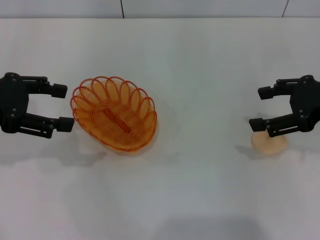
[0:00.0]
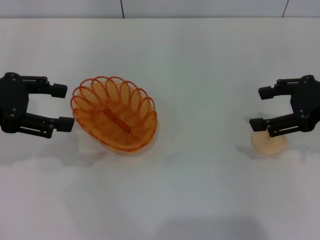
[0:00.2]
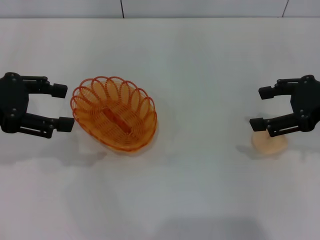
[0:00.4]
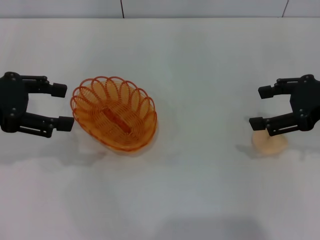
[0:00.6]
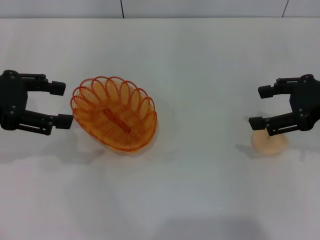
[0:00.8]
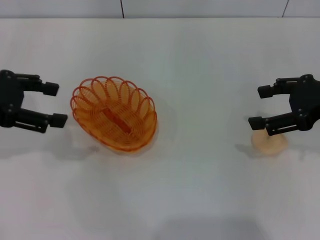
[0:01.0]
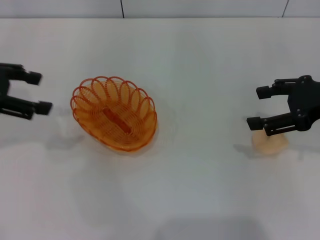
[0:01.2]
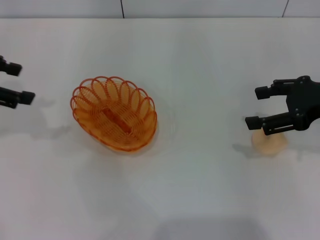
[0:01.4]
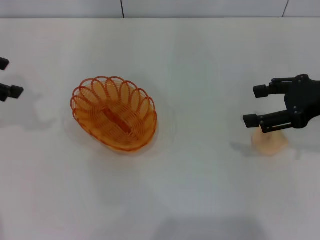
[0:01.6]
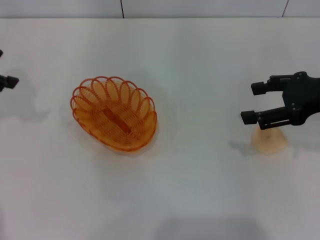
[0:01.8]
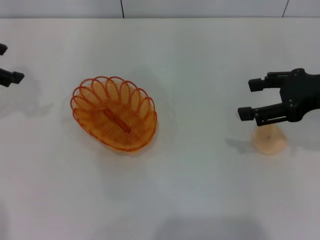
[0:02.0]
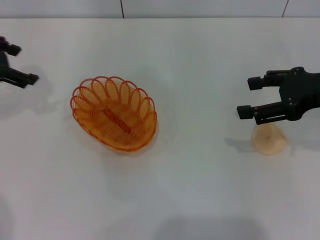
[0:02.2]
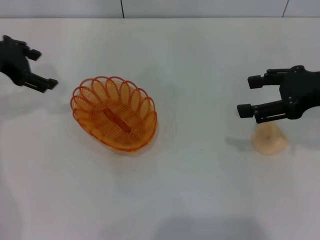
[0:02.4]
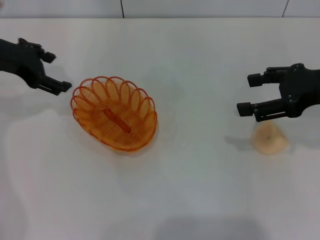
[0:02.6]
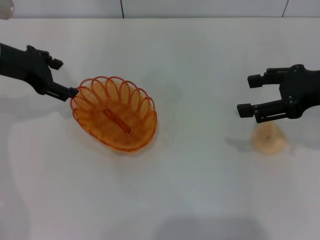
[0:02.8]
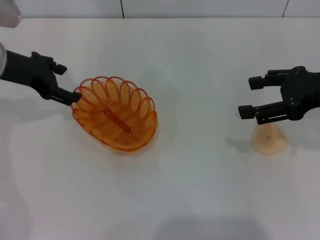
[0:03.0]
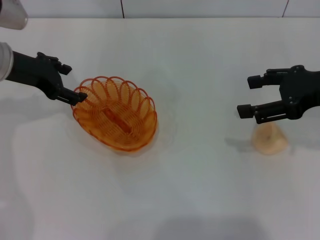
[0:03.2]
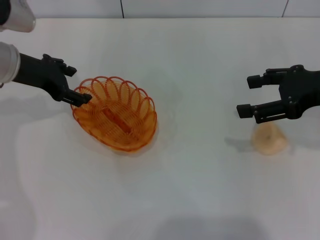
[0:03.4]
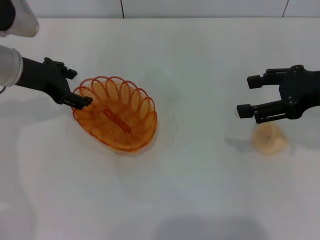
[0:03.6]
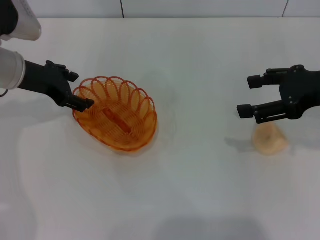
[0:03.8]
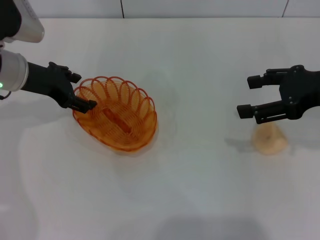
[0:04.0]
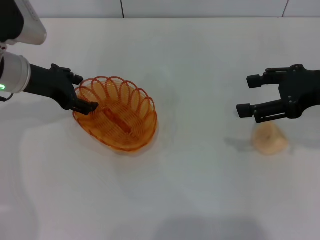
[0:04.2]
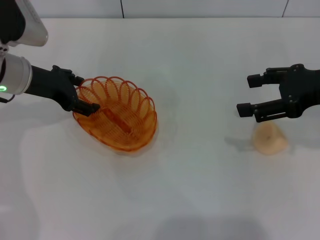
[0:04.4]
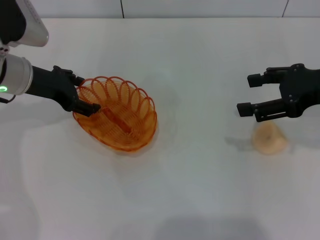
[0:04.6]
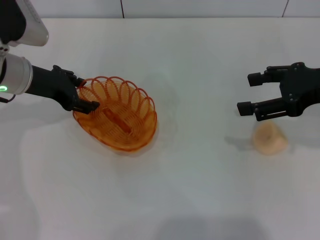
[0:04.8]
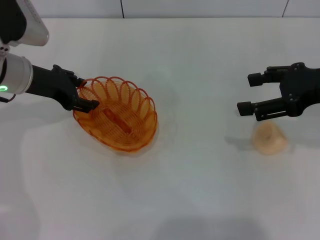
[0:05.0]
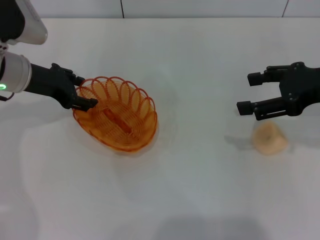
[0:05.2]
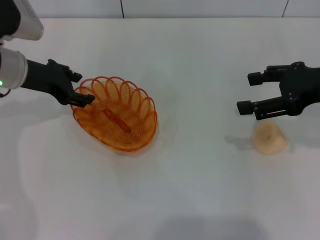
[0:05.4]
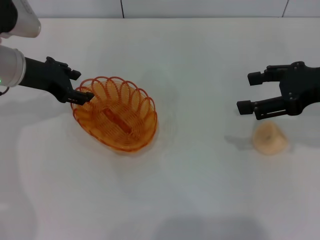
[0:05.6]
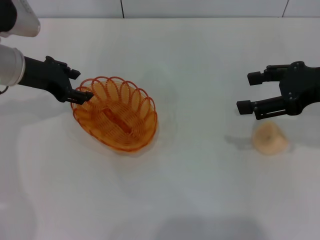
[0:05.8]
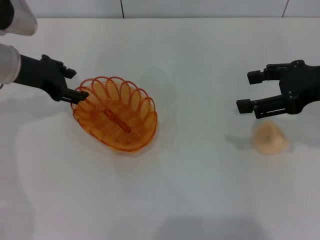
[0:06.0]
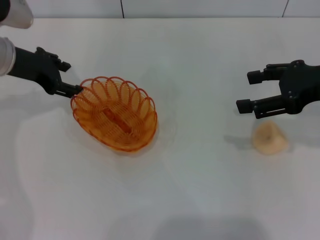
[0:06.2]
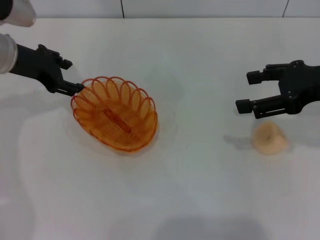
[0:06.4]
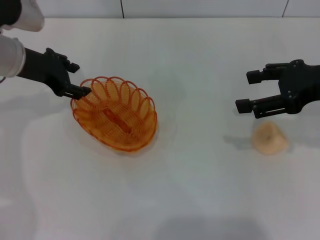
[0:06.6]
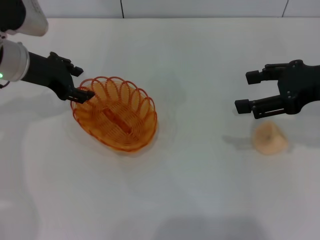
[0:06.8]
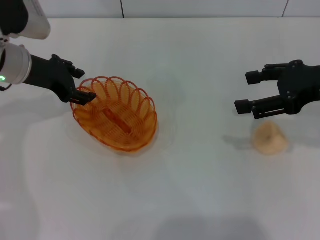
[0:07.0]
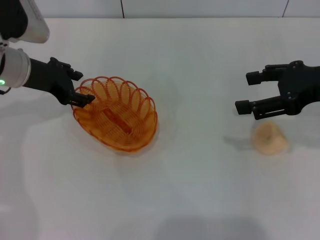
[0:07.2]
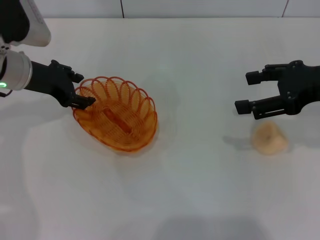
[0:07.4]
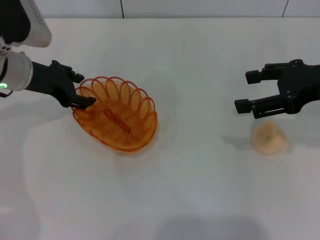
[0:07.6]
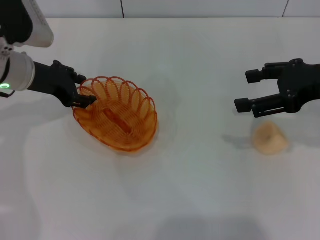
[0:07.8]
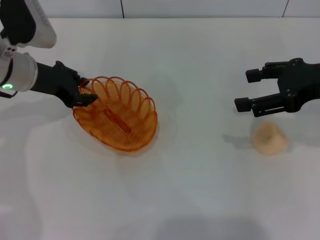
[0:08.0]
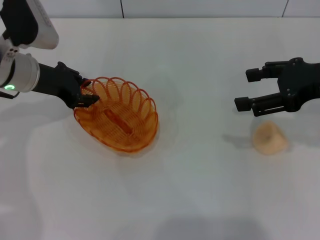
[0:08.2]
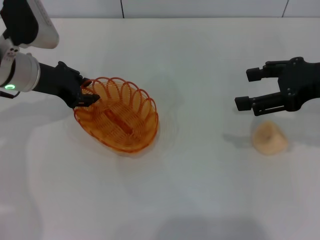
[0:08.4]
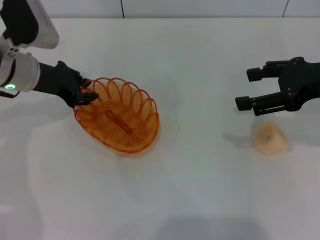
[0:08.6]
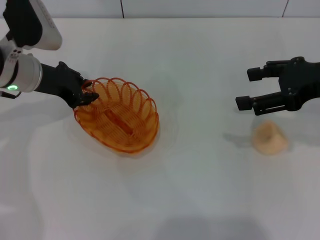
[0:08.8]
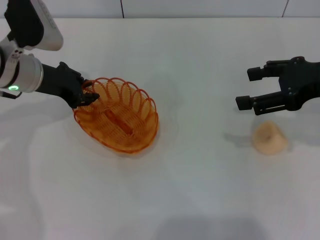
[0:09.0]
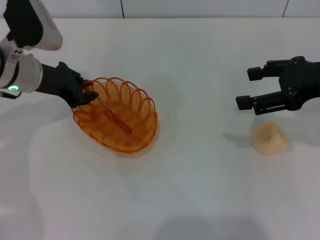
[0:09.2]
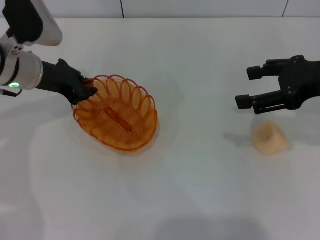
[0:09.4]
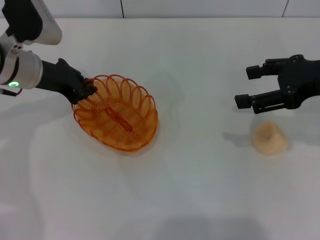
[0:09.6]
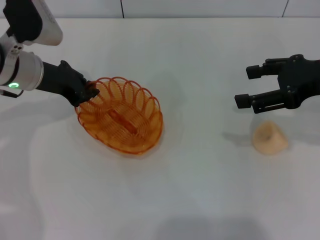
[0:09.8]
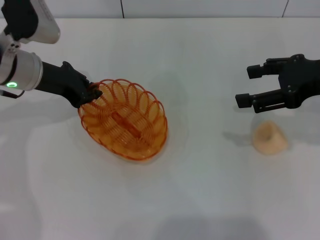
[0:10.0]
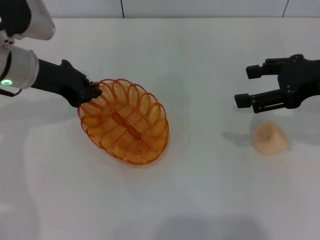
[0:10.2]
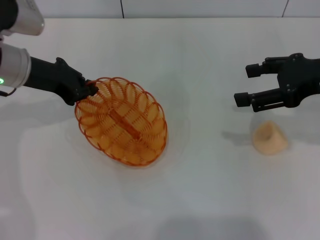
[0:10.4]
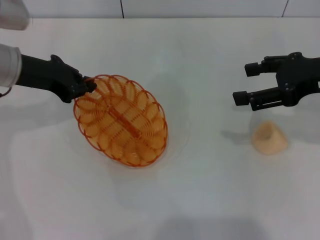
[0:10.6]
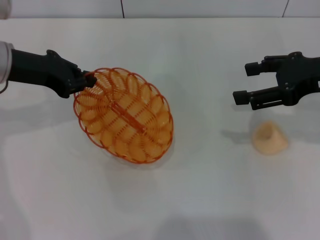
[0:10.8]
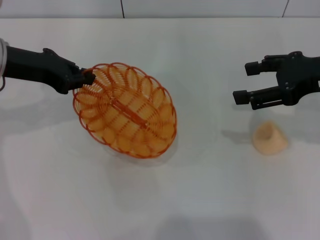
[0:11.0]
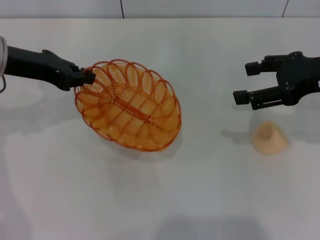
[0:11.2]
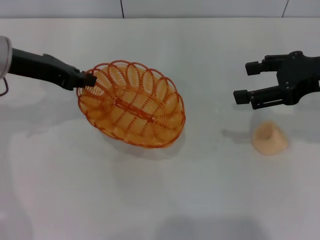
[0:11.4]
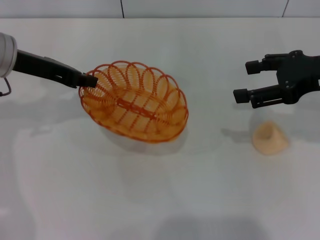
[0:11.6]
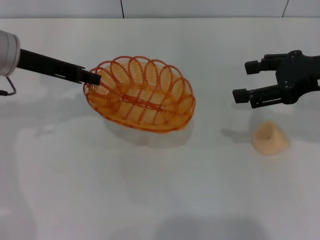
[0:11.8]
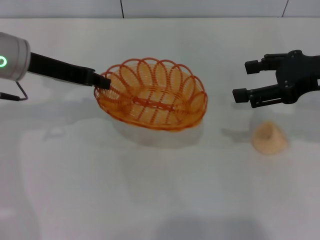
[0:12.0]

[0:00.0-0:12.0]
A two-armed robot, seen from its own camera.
Step, 0:00.0 to 0:11.6: Pick up the basket with the left gripper.
0:00.0 to 0:01.6: The left gripper is displaced forward by some 5 cm.
0:01.6 to 0:03.0: The left gripper travels to the right and downward by approximately 10 cm.
0:03.0 to 0:07.6: The grippers stay close to where they were, moving slightly.
0:07.6 to 0:09.0: The left gripper closes up.
0:09.0 to 0:10.4: There are only small adjustments of the grippers.

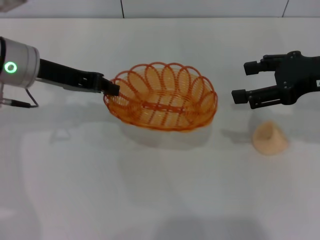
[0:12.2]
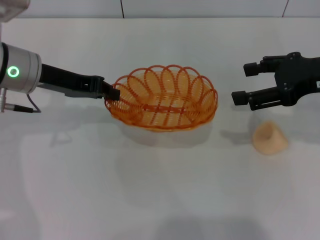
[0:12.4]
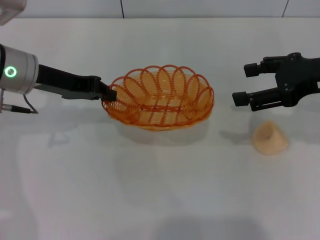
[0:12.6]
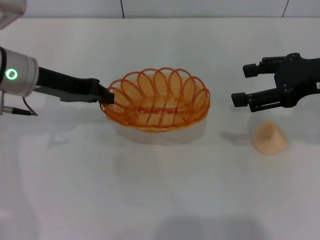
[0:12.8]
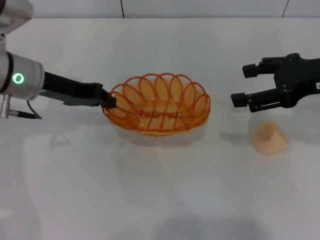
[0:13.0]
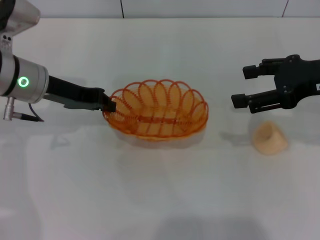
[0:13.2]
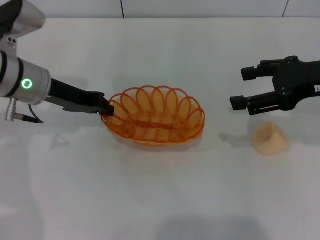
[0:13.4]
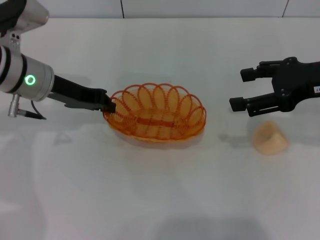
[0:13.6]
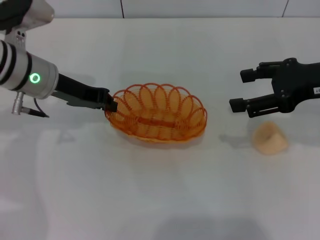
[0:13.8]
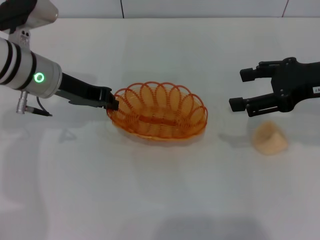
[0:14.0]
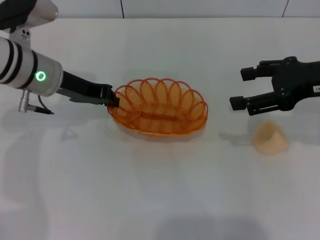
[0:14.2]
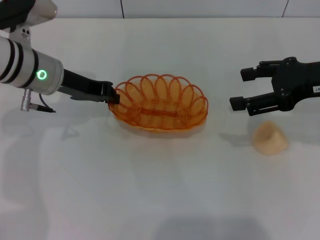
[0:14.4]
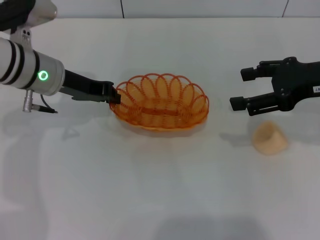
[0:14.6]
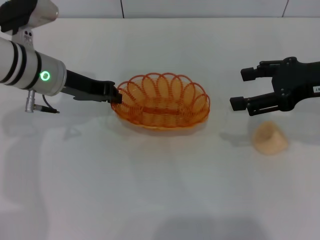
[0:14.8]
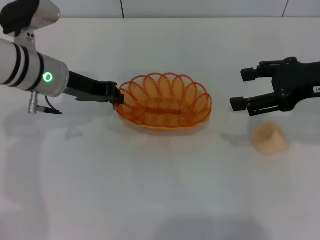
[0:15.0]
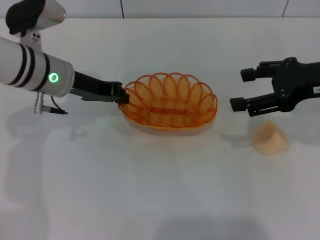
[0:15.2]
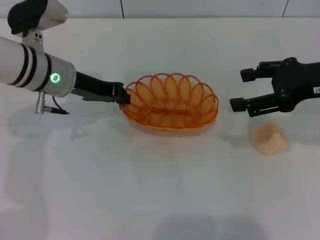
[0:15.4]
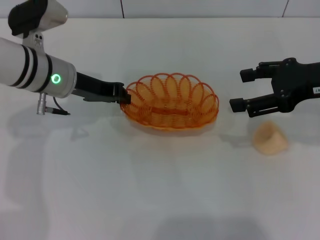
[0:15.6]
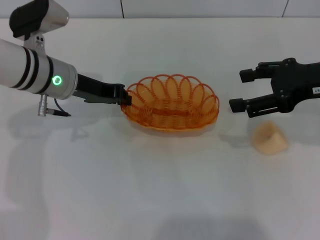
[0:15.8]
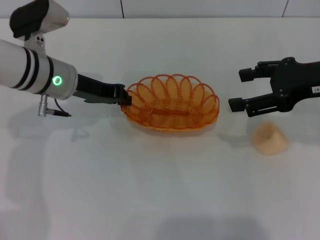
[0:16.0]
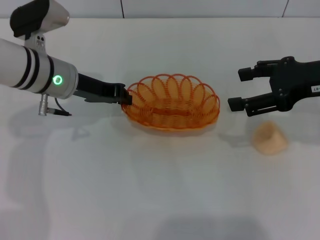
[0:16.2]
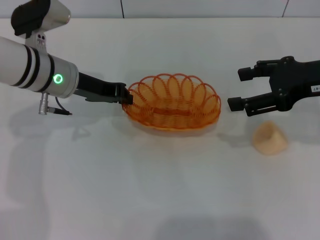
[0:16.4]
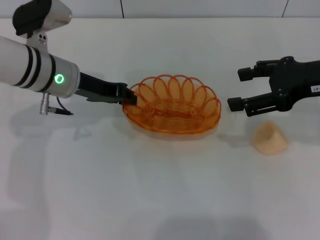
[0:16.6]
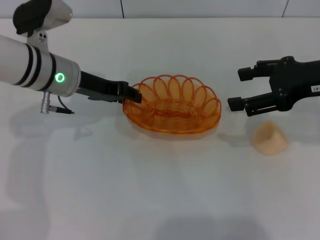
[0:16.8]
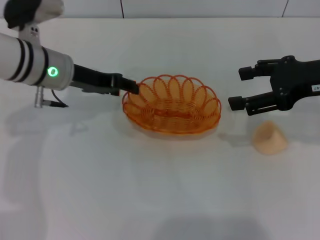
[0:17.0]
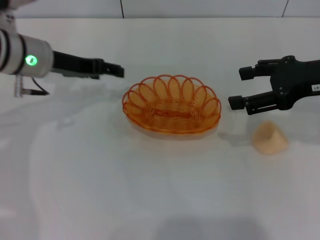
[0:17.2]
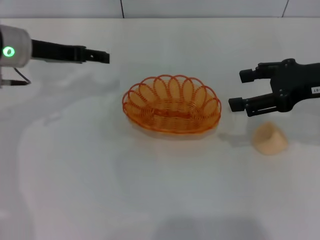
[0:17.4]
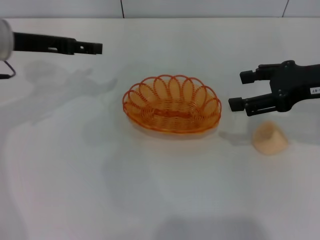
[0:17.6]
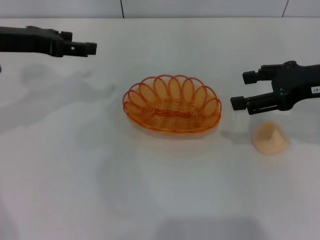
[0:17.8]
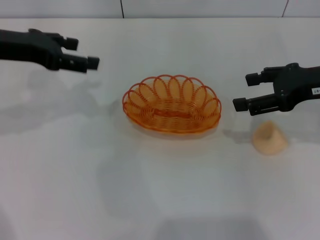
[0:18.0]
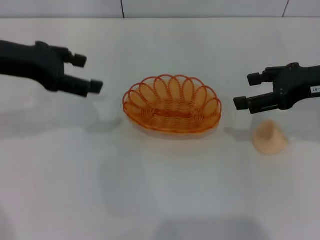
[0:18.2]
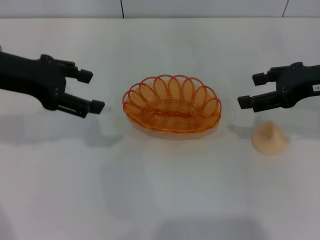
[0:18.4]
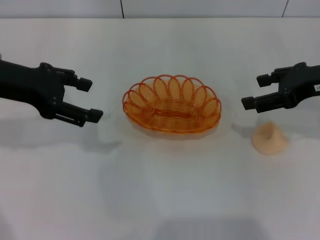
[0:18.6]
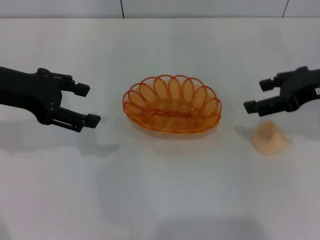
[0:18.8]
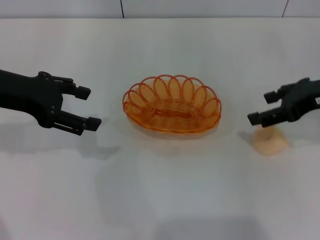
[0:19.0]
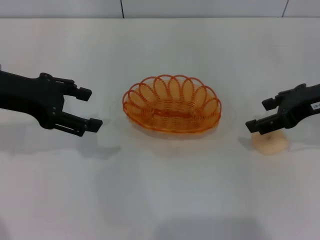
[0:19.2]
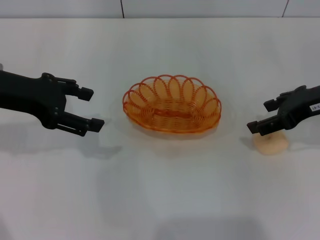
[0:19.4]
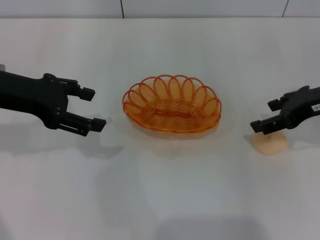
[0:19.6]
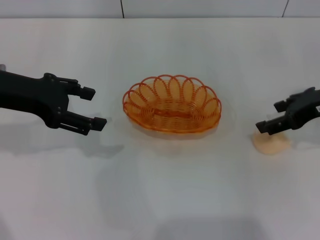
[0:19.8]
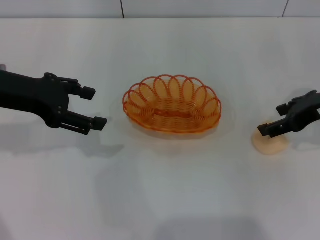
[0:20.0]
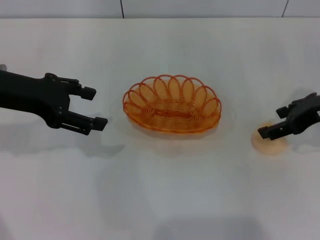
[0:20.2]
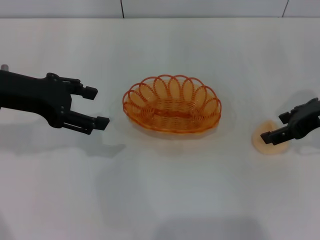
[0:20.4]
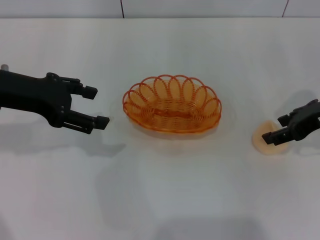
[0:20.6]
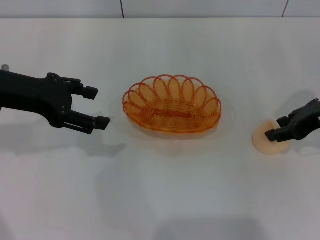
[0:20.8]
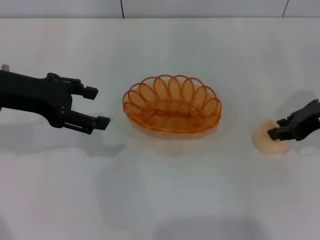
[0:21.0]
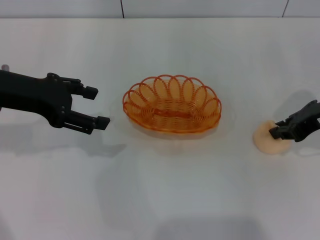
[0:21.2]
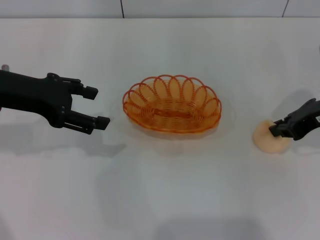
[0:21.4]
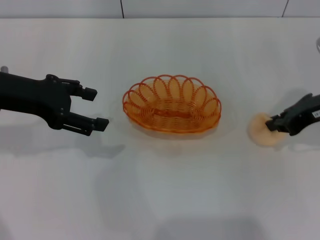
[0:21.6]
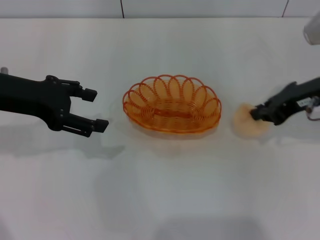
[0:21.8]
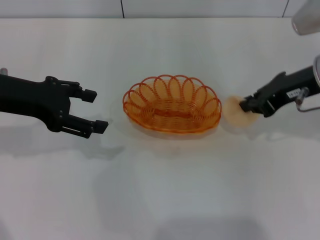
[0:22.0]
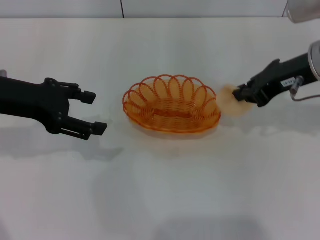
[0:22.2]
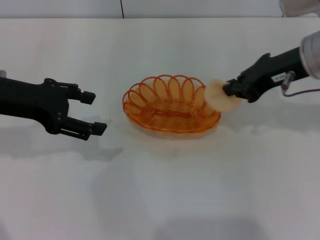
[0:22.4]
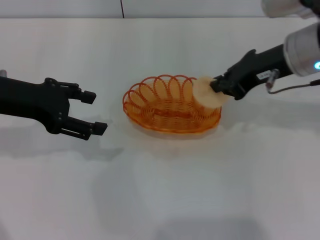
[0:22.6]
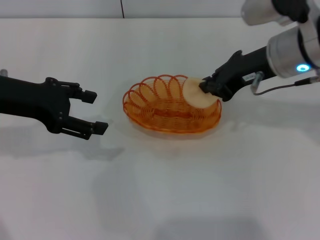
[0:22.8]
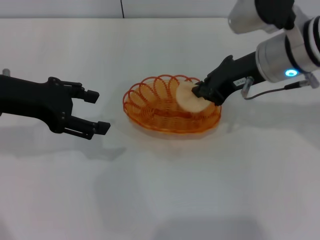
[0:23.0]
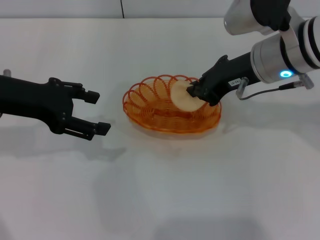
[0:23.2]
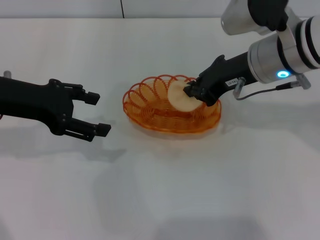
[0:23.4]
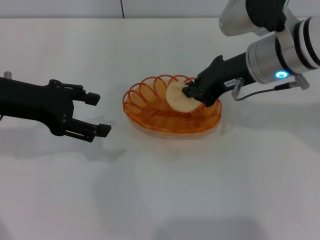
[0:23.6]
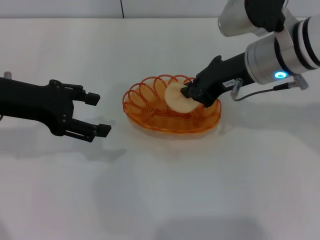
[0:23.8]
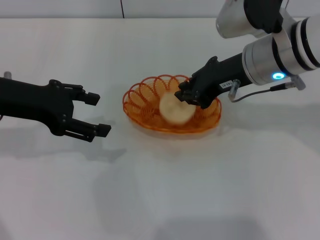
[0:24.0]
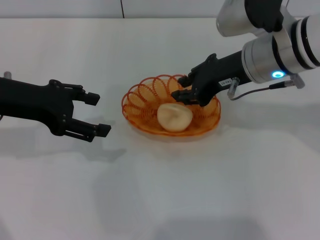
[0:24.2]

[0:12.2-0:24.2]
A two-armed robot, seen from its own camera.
Step, 0:12.2 to 0:17.2: Place the basket in the center of view with the left gripper.
Step, 0:17.4 to 0:22.0: Pick up the egg yolk pastry with the right gripper.
0:12.2 to 0:15.2: There are only small adjustments of the grippers.
0:15.2 to 0:16.6: Both grippers stay about where they are.
0:16.6 to 0:18.2: The left gripper moves upward and to the left, roughly 10 cm, and opens.
0:19.8 to 0:21.2: The right gripper closes.
0:21.2 to 0:22.6: The right gripper is displaced to the left by approximately 10 cm.
0:22.6 to 0:24.2: The grippers make only small movements.
